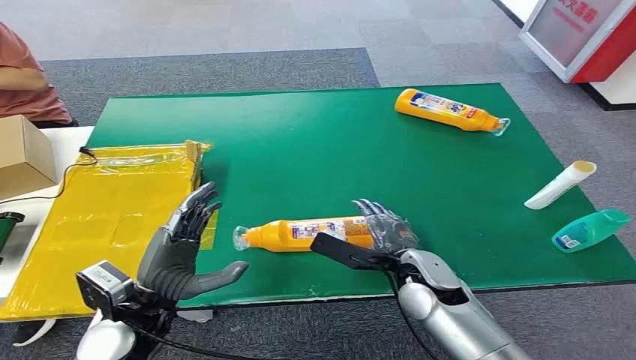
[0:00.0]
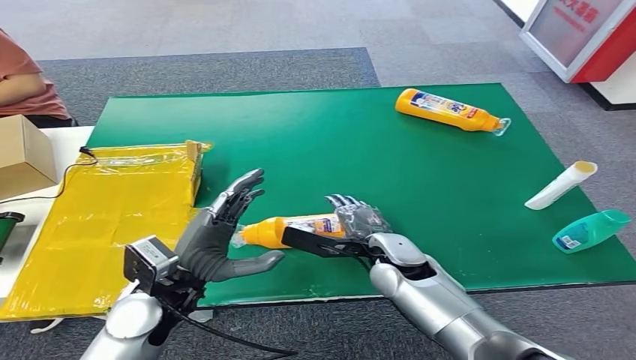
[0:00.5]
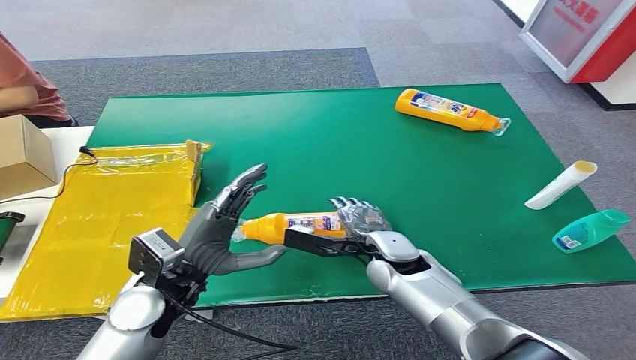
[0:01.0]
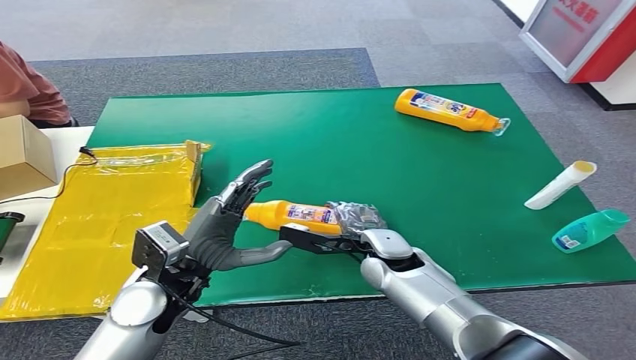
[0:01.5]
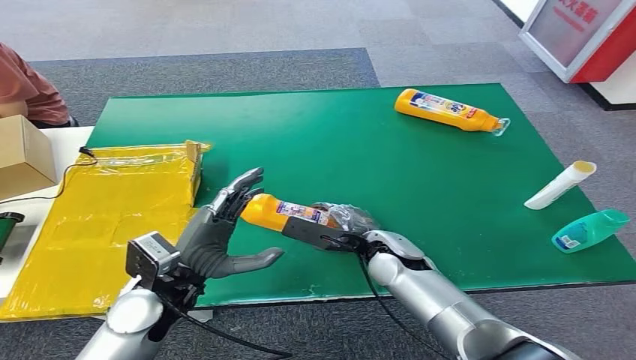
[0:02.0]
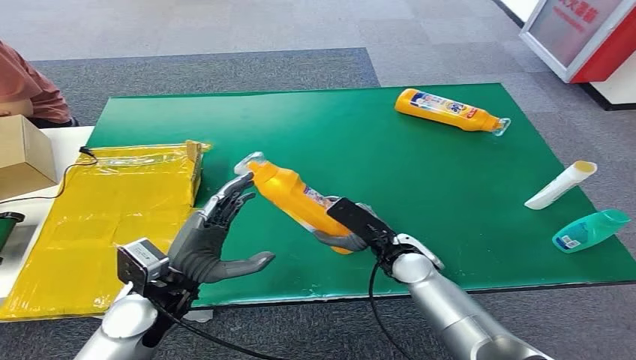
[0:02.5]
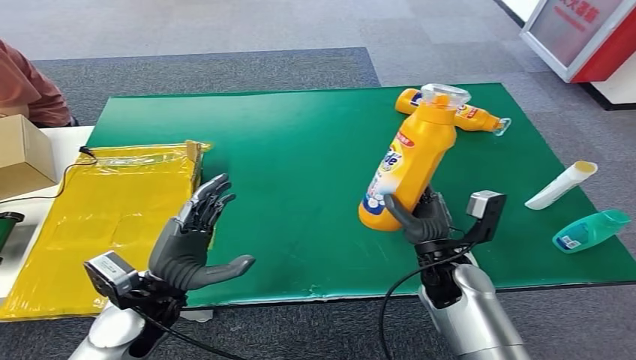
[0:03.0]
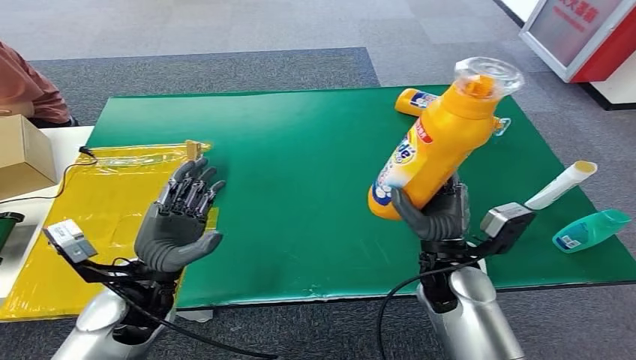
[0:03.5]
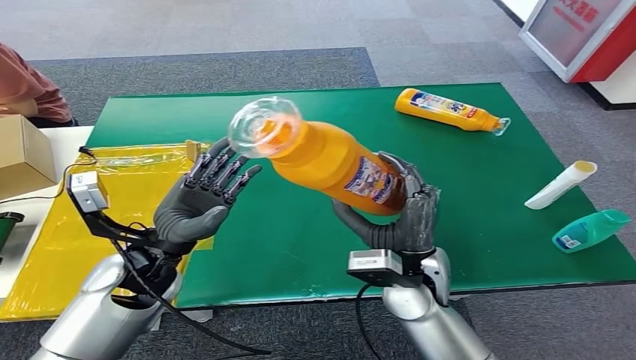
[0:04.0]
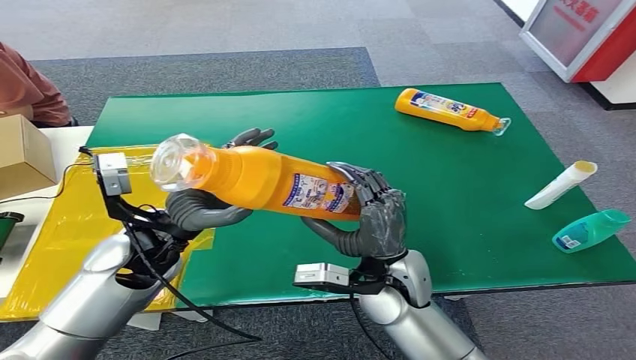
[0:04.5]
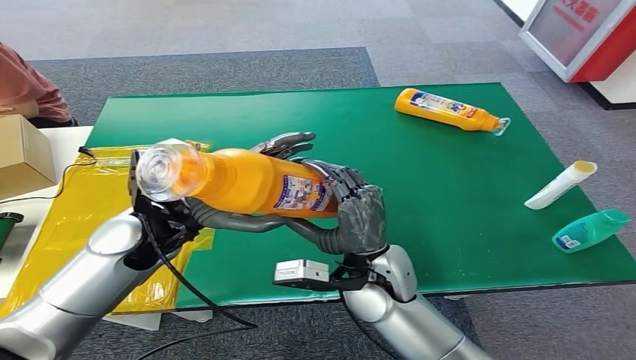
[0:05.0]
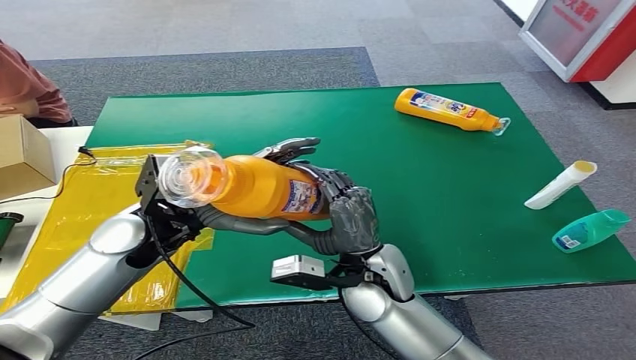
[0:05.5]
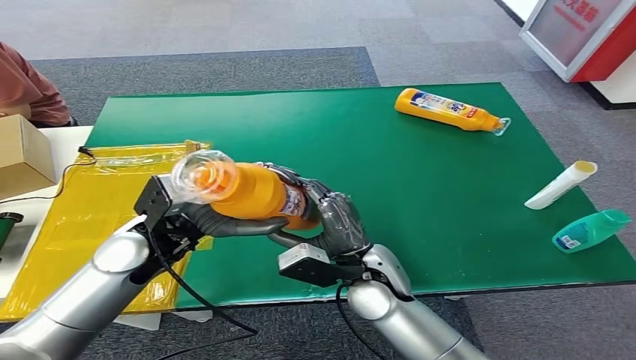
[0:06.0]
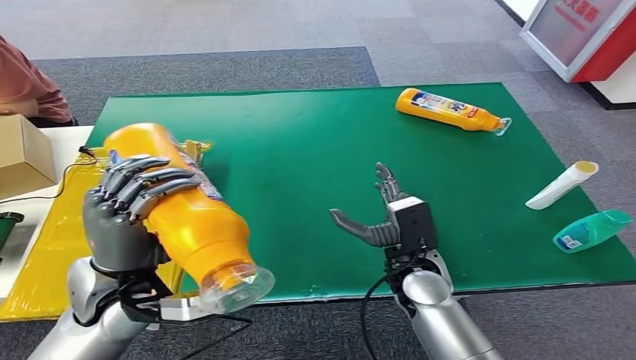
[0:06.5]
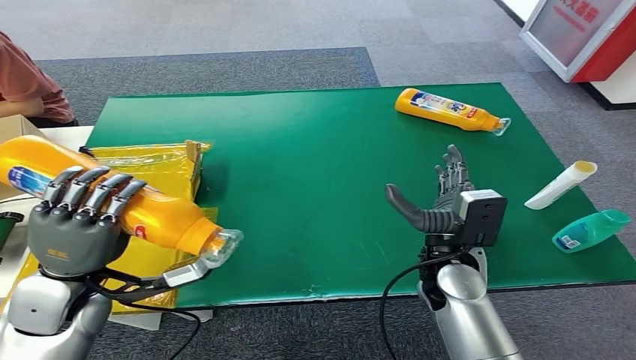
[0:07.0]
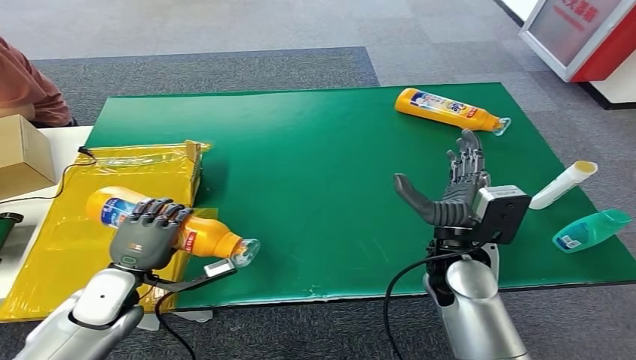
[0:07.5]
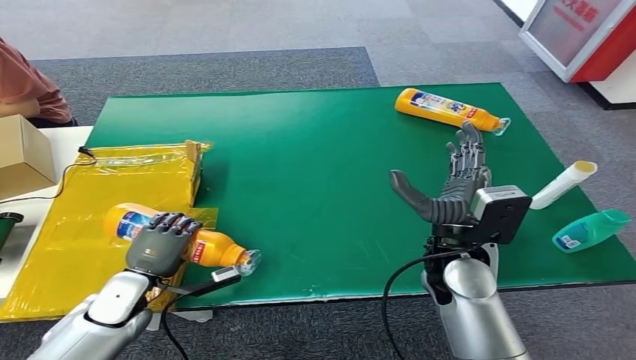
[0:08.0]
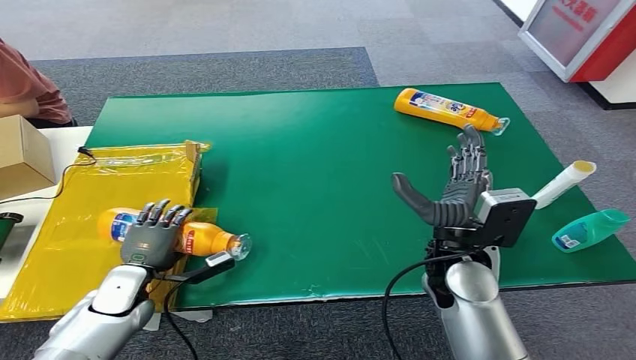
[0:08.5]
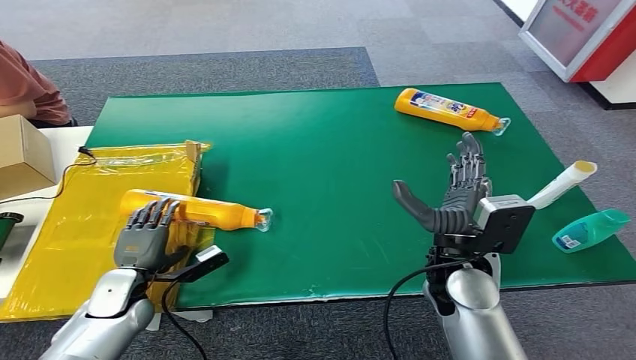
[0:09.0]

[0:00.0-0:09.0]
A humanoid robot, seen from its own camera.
Step, 0:00.0 to 0:02.5: Pick up the bottle from the table.
Step, 0:03.0 to 0:09.0: Turn the bottle to the front side.
0:07.0 to 0:09.0: The left hand is displaced downward by some 15 cm.

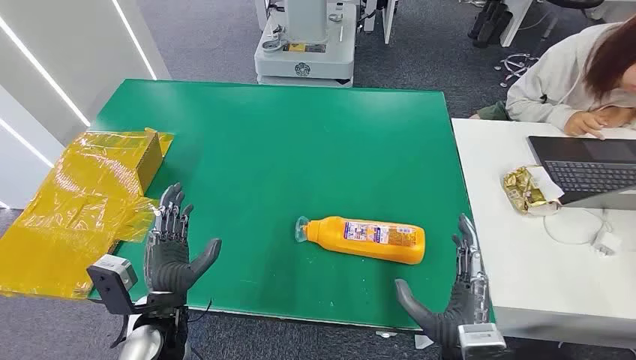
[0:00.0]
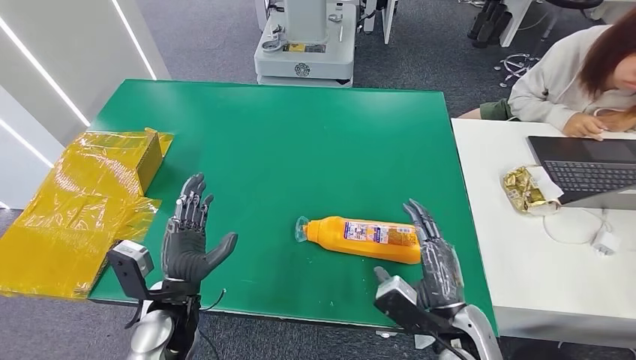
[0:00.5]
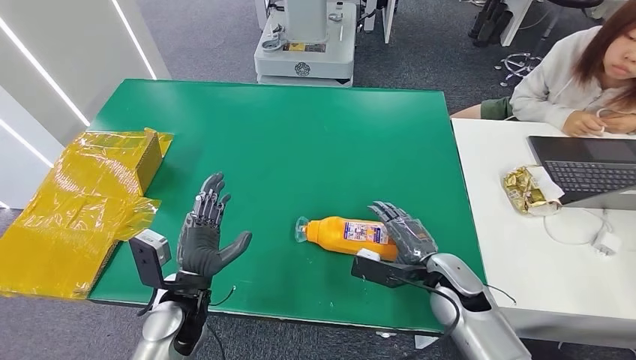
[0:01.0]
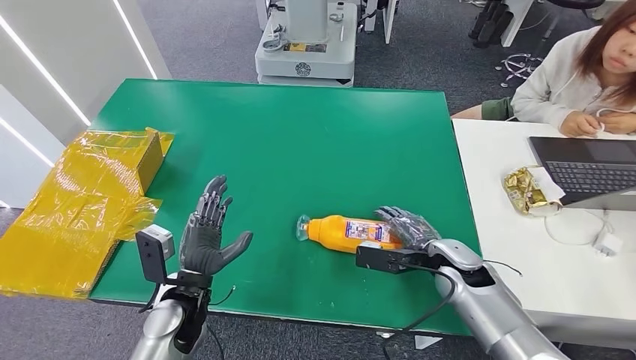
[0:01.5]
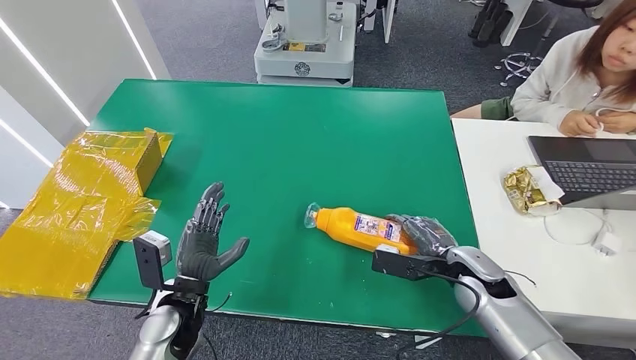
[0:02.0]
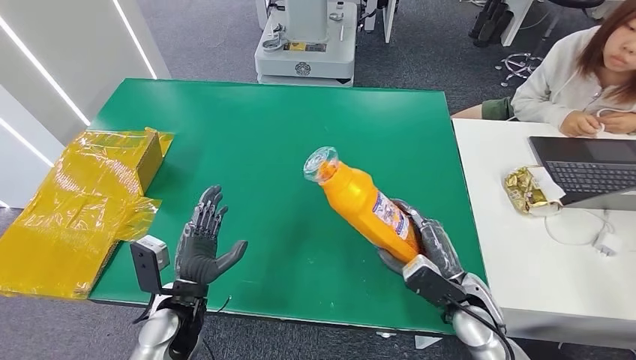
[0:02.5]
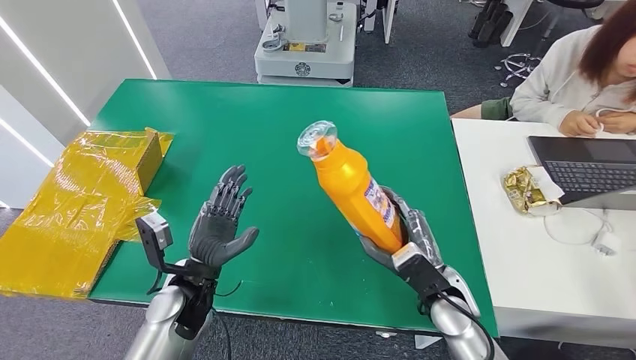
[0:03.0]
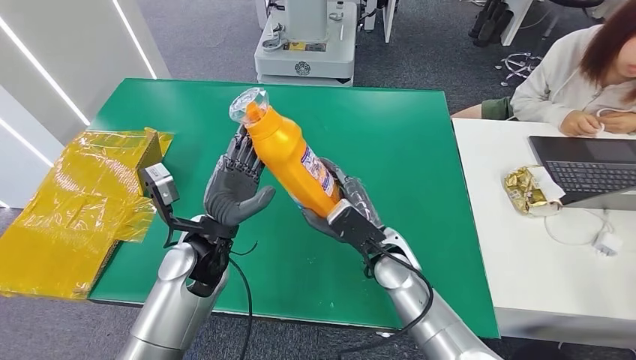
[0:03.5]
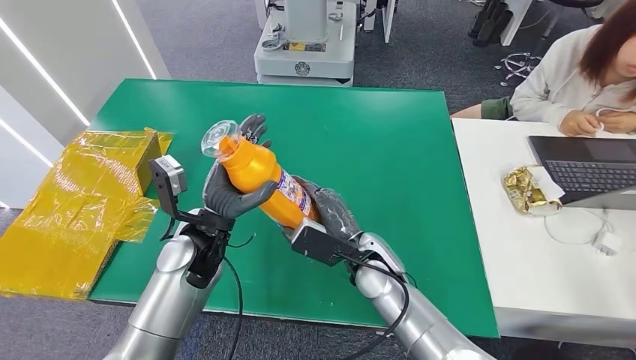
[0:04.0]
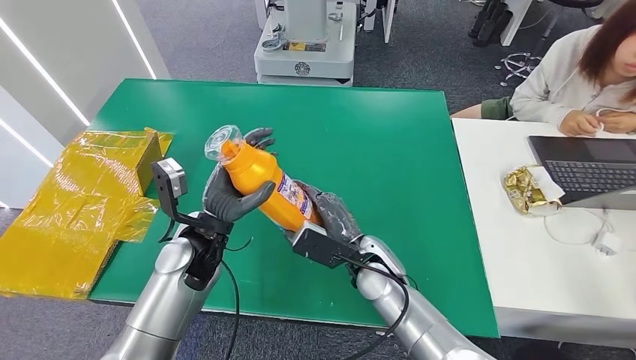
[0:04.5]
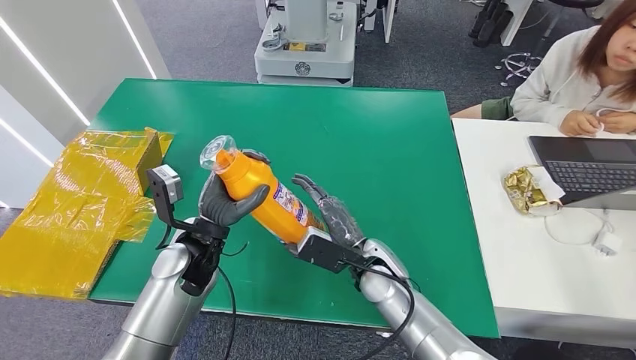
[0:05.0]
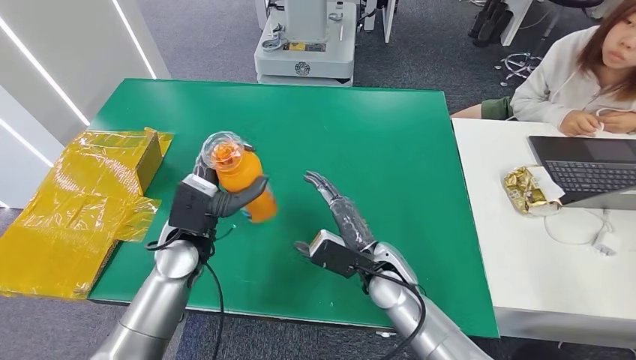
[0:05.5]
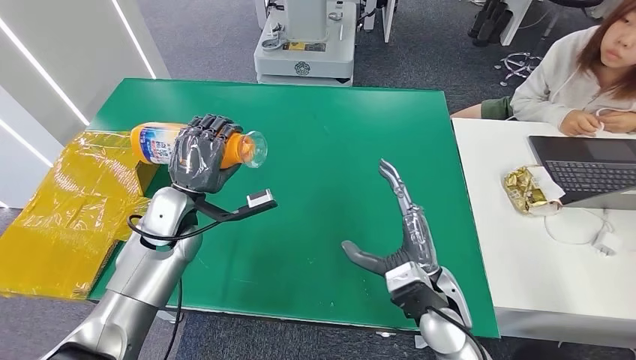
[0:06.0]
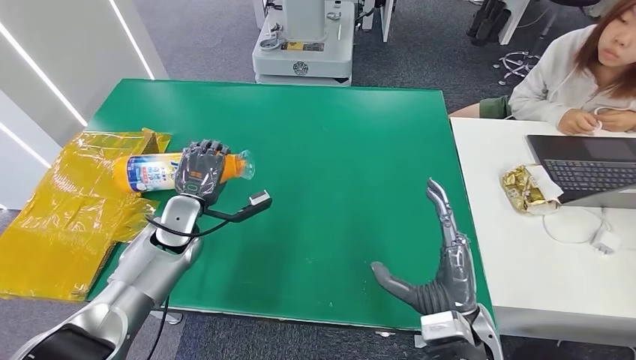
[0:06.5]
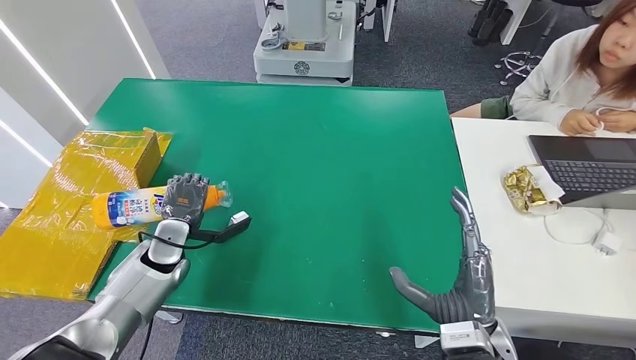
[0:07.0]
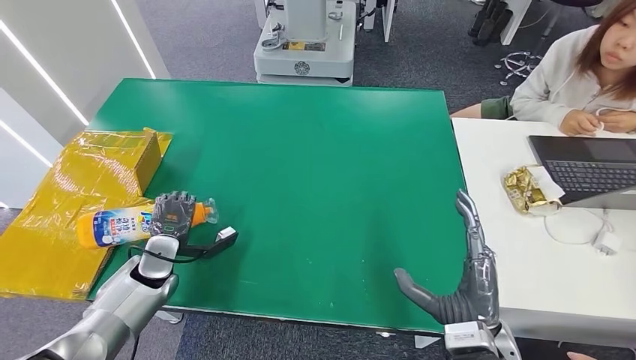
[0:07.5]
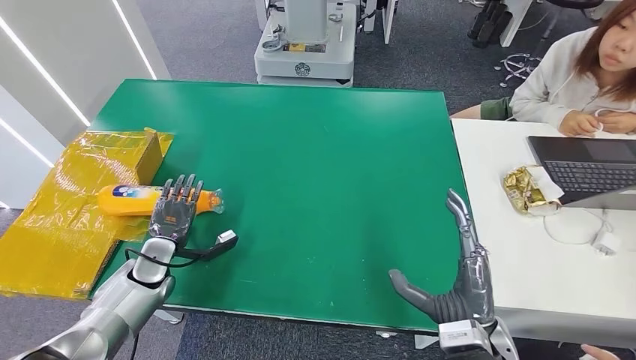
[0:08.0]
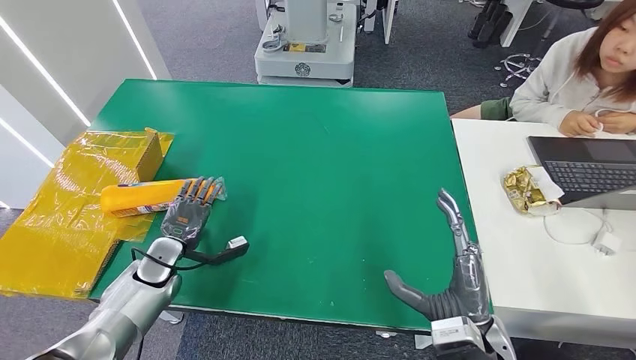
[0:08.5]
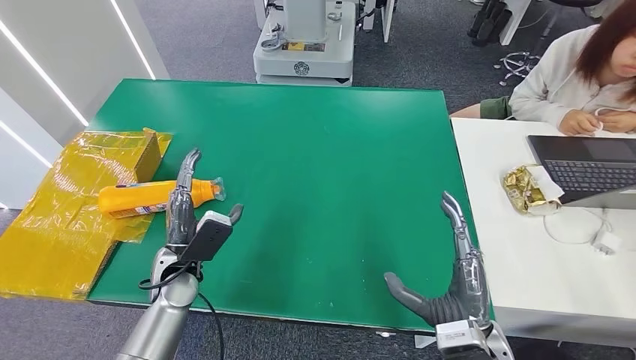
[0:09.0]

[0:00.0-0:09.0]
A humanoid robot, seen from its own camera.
Step, 0:00.0 to 0:03.0: Pick up the bottle from the table.
Step, 0:03.5 to 0:09.0: Turn the bottle to the front side.
0:02.0 to 0:04.5: The left hand moves forward and upward, roughly 10 cm. Meanwhile the right hand heads to the left, covering approximately 20 cm.
0:04.5 to 0:07.0: The left hand travels to the left and downward by approximately 15 cm, while the right hand travels backward and to the right by roughly 20 cm.
0:07.0 to 0:09.0: The left hand shifts some 10 cm to the right and backward.
